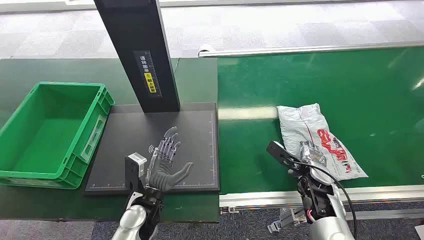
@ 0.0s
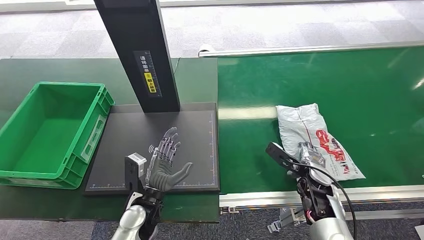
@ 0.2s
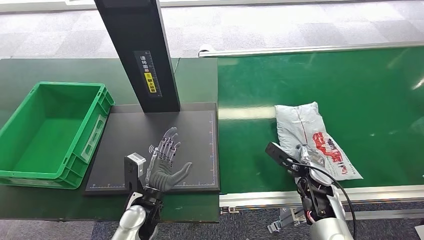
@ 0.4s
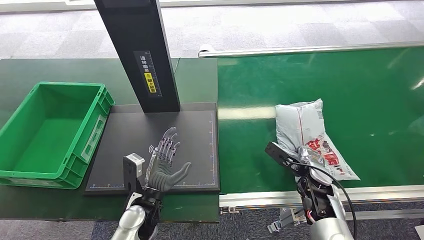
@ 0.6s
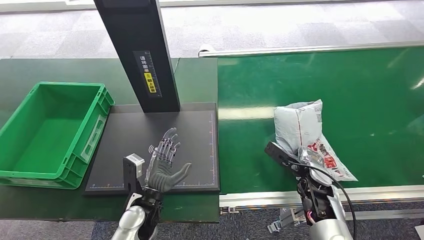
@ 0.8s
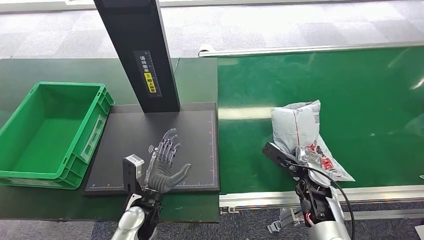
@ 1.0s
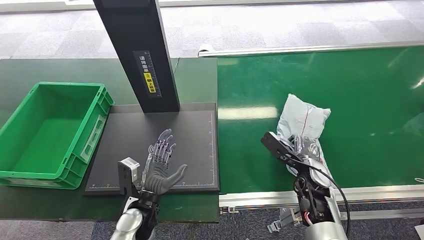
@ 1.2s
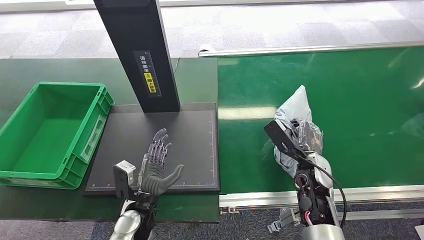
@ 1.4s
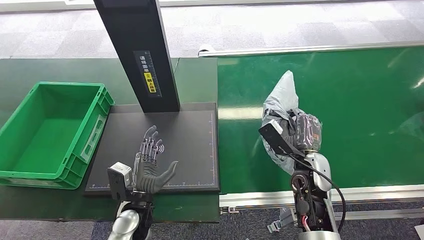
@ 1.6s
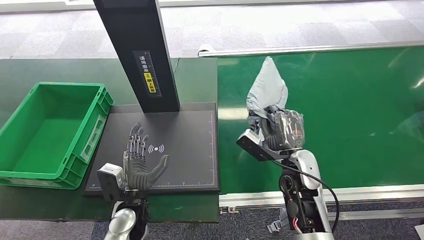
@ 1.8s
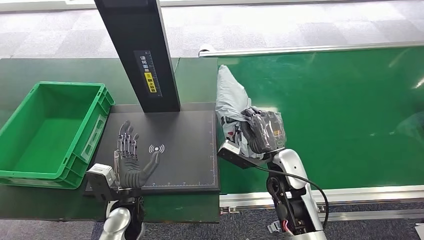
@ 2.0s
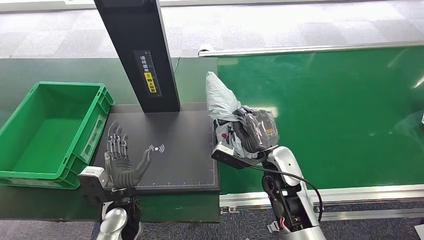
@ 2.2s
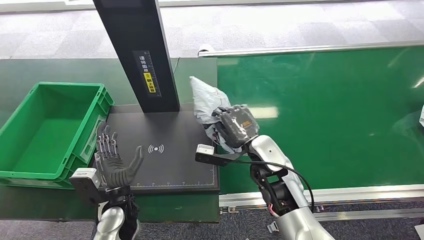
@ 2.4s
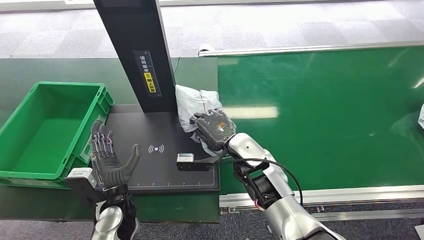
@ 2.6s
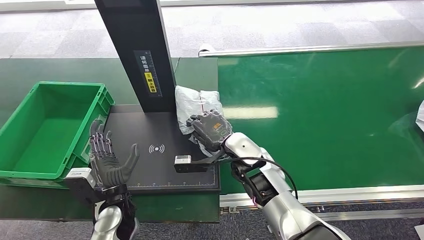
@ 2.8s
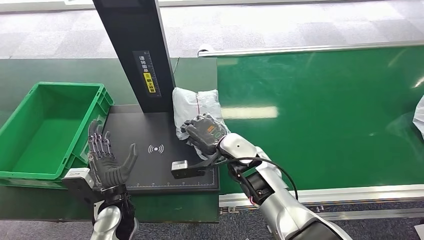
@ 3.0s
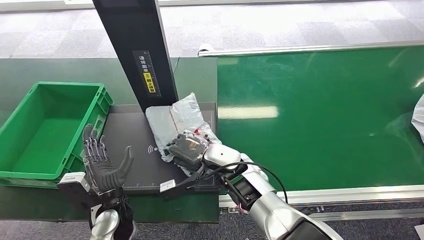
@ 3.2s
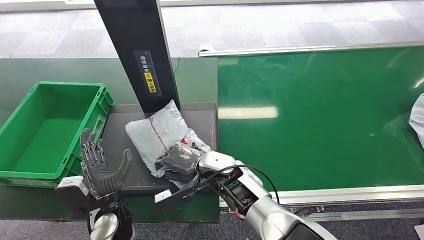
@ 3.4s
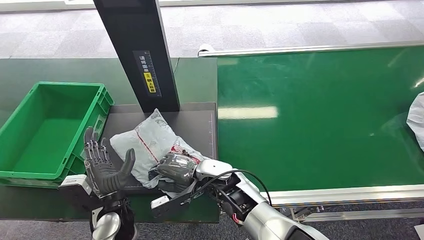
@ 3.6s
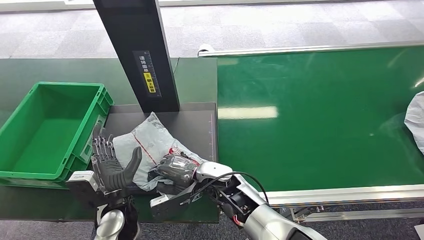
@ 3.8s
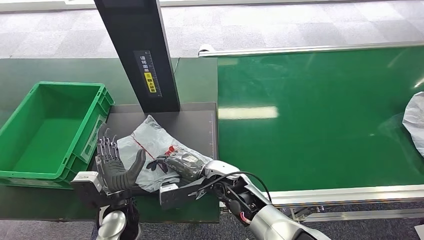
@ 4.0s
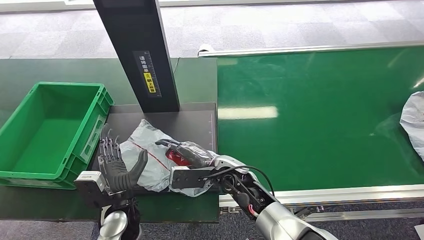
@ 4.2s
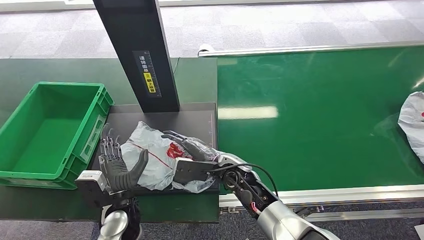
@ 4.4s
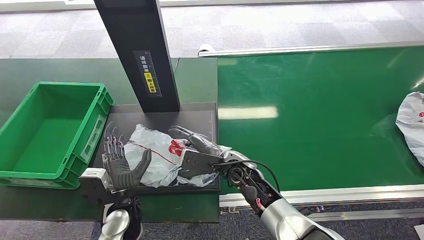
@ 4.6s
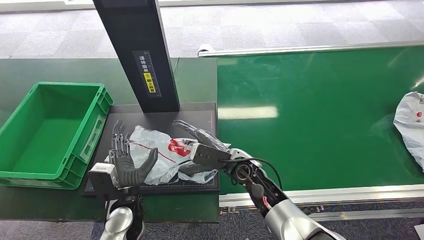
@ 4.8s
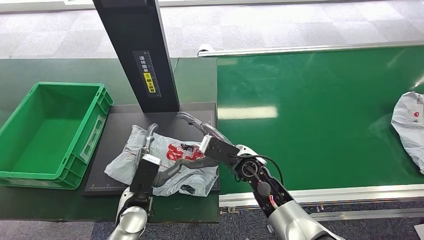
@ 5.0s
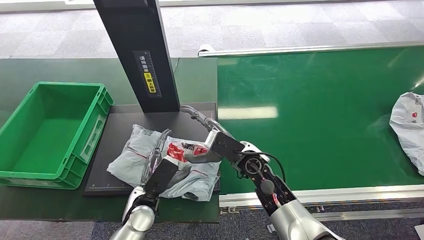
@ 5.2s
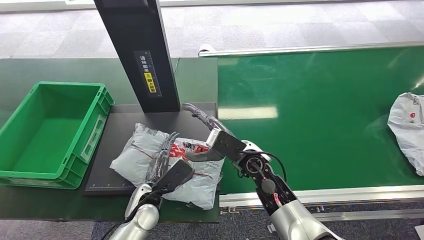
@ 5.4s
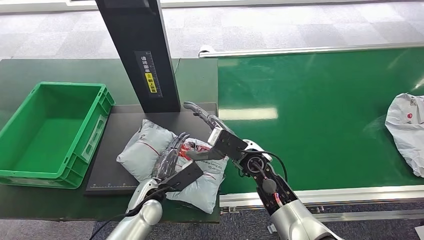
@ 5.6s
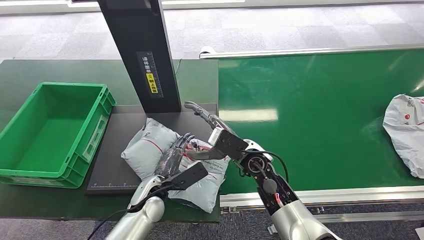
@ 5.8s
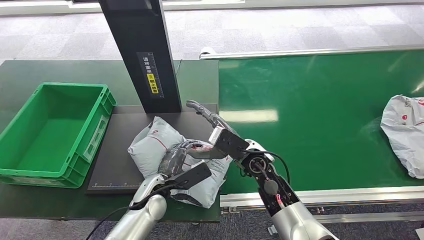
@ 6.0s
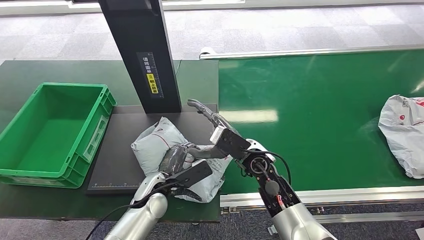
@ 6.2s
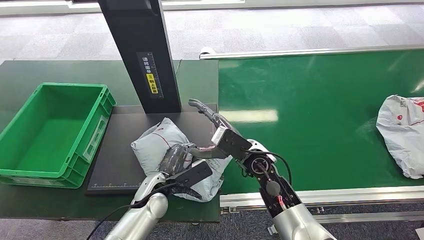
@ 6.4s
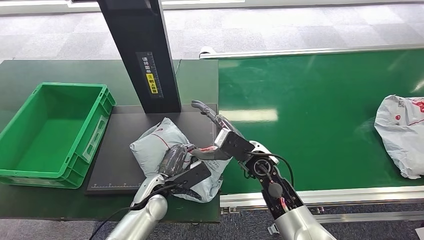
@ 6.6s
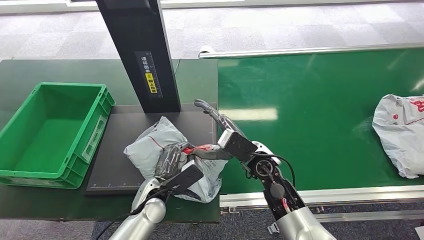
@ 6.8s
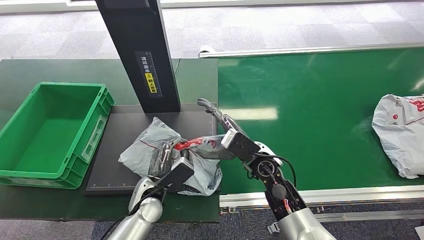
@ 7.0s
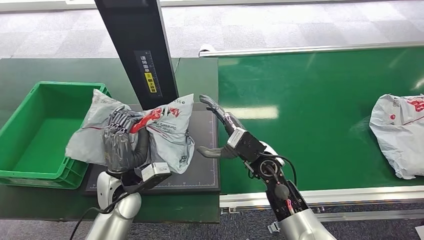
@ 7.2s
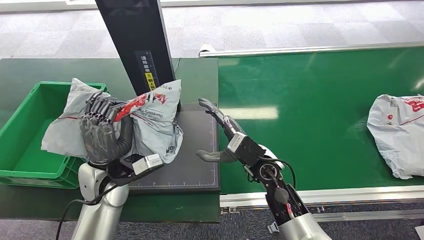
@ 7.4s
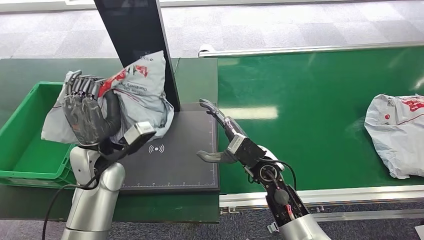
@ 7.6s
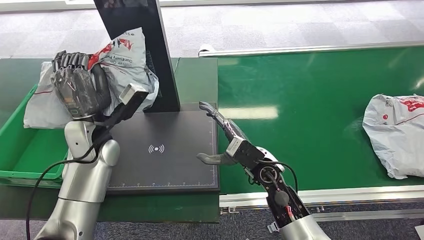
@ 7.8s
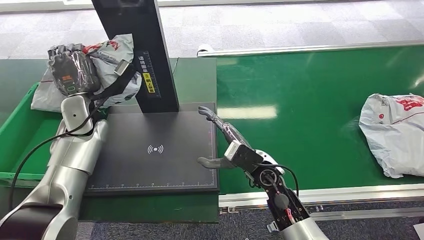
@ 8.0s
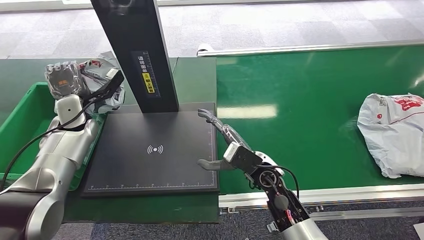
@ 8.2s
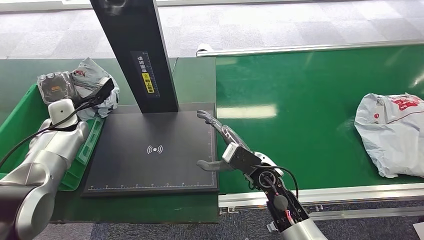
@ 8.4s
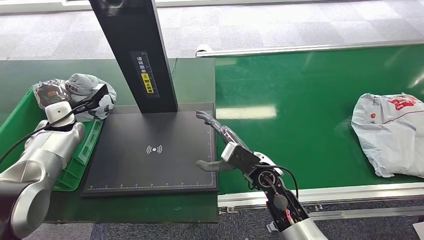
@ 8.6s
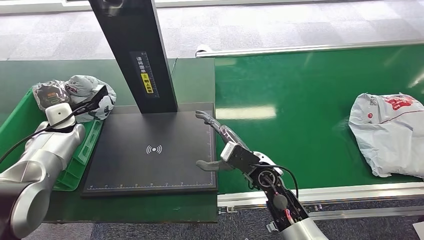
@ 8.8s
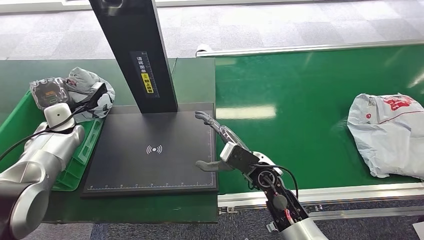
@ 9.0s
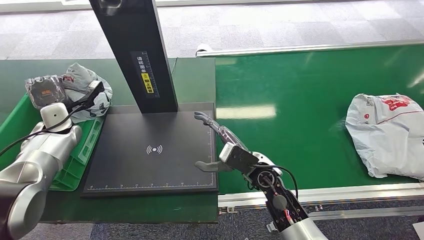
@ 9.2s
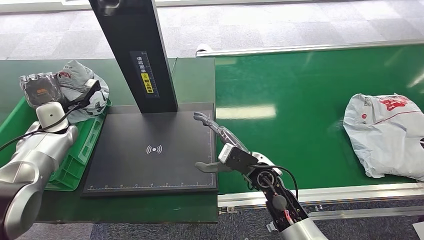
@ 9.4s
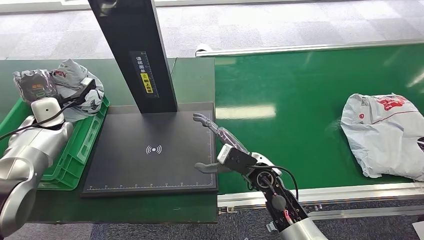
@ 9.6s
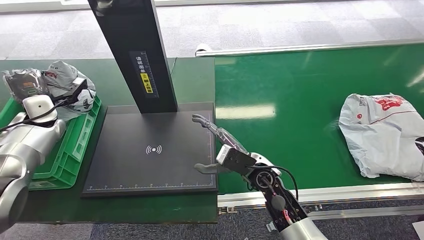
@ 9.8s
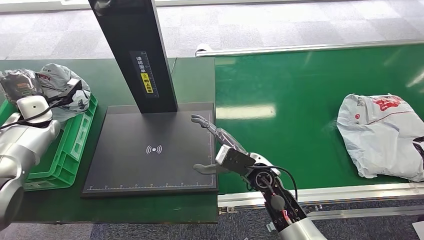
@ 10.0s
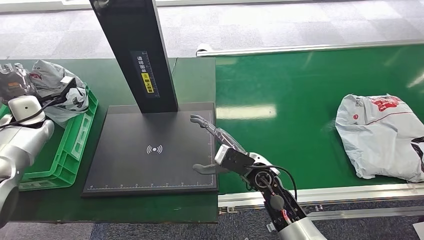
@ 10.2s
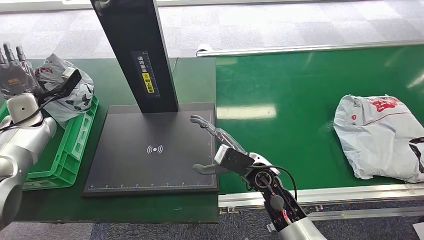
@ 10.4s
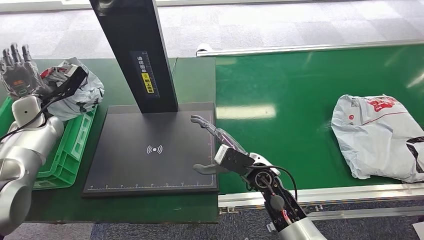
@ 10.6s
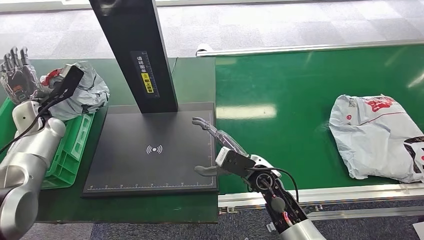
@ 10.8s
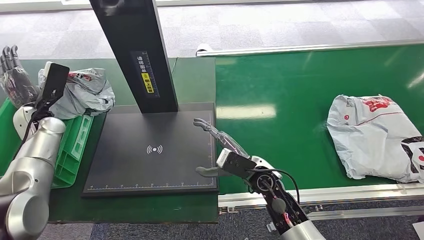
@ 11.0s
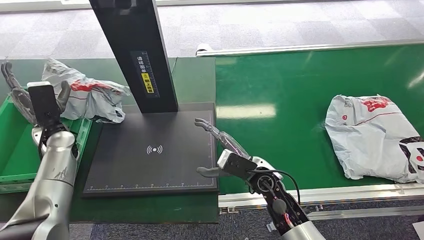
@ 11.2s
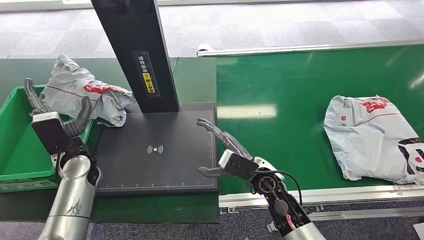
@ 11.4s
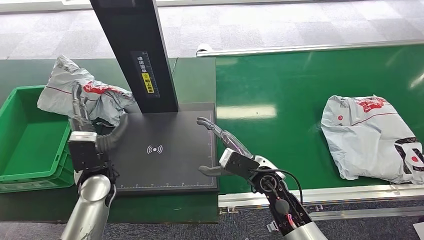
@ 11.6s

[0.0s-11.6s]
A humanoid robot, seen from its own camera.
Task of the whole recording: Weigh the package on the weighing device and place it in the left basket.
Step, 0.0s to 2.4s: Pick up the package from the conveyor belt.
Step, 2.6s to 5.0s: Place the package onto the inbound machine.
Step, 5.2s to 7.4s: Pick up the package from the inbound machine.
Step, 7.8s to 11.6s: Place the package into the parcel locker.
1.4s to 2.8s: The right hand goes some 20 cm to the left. The left hand moves approximately 5 cm.

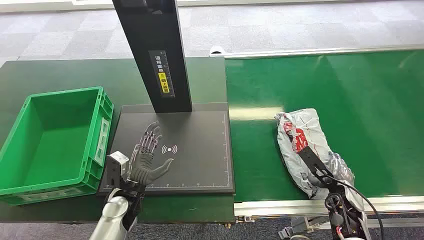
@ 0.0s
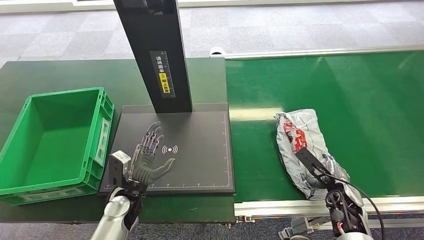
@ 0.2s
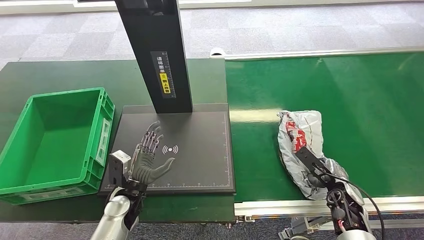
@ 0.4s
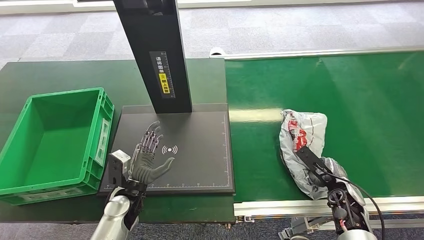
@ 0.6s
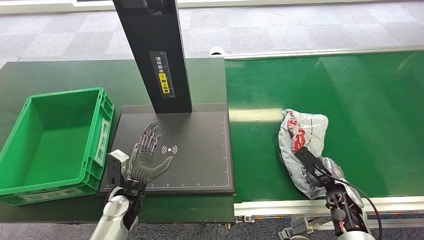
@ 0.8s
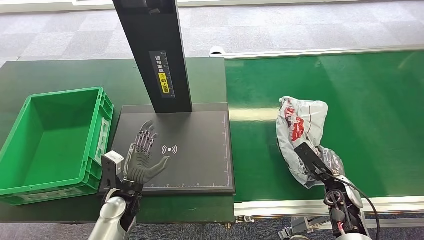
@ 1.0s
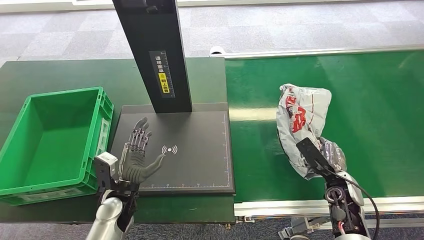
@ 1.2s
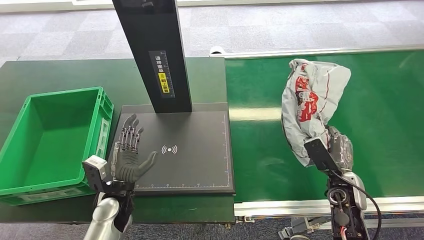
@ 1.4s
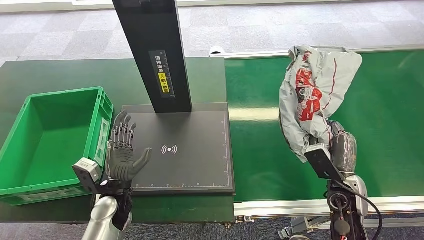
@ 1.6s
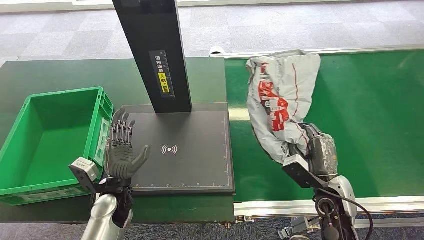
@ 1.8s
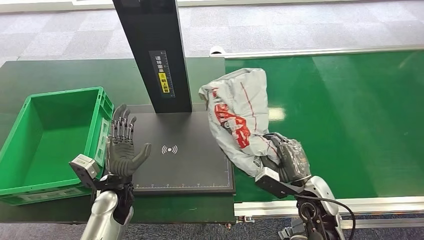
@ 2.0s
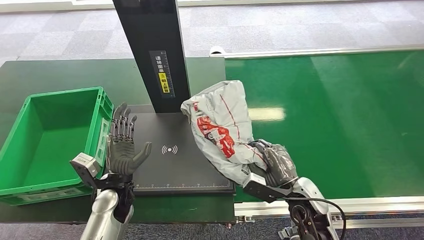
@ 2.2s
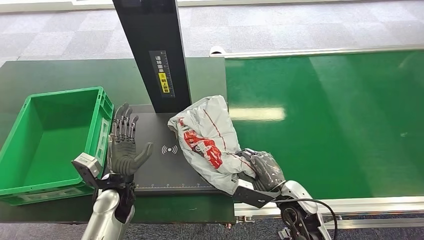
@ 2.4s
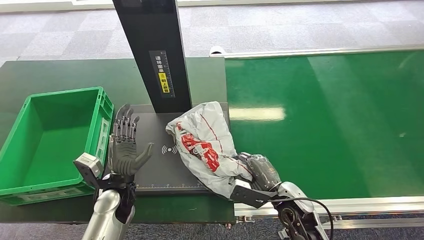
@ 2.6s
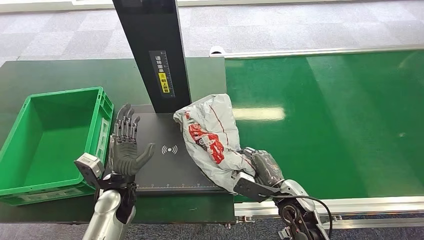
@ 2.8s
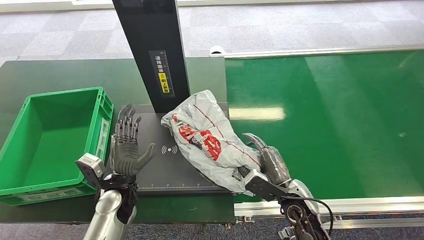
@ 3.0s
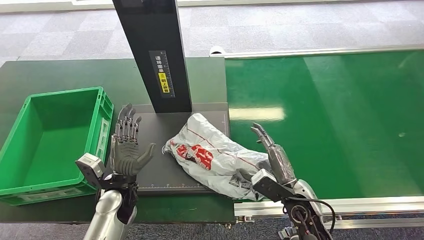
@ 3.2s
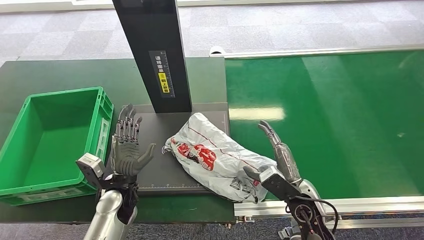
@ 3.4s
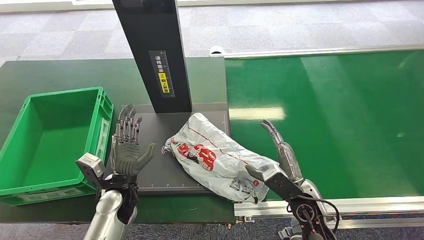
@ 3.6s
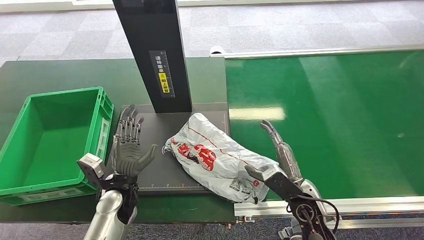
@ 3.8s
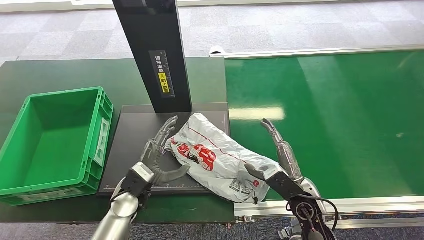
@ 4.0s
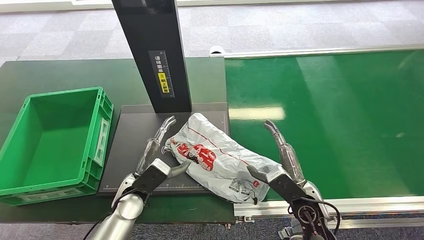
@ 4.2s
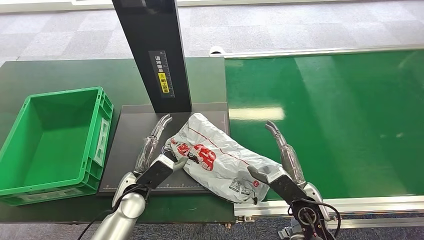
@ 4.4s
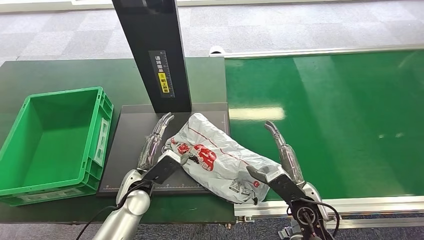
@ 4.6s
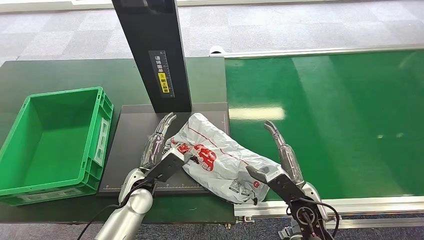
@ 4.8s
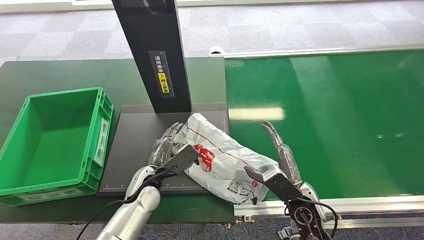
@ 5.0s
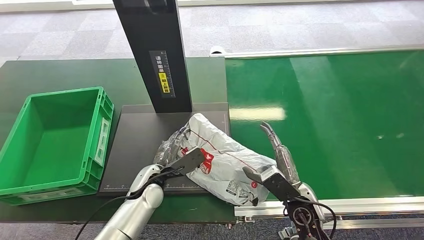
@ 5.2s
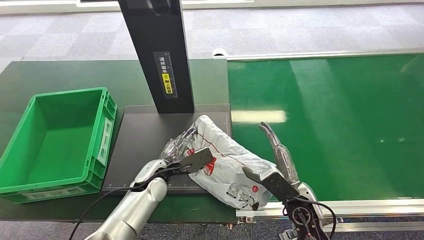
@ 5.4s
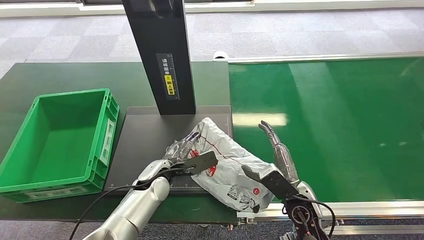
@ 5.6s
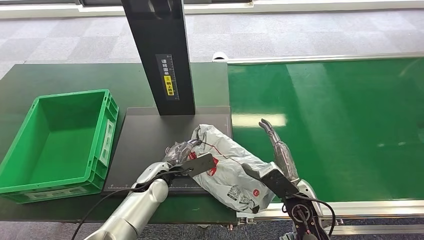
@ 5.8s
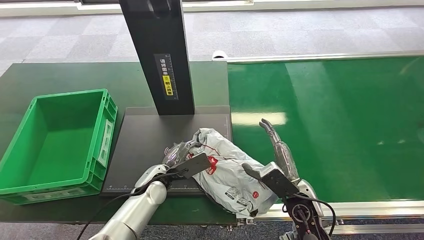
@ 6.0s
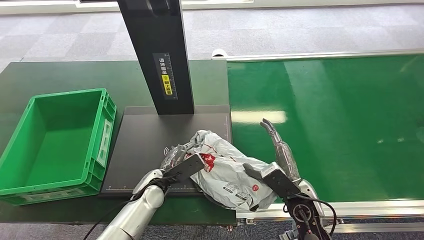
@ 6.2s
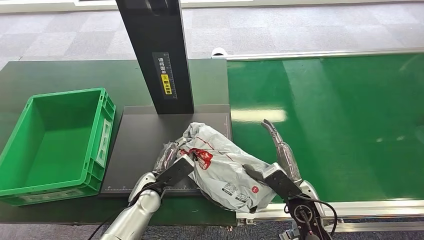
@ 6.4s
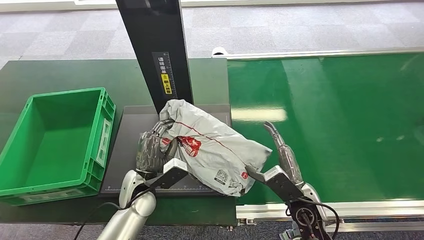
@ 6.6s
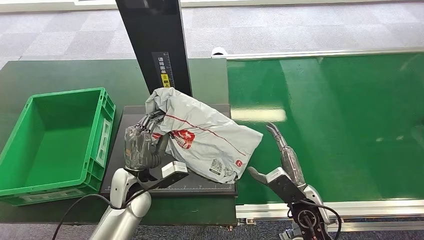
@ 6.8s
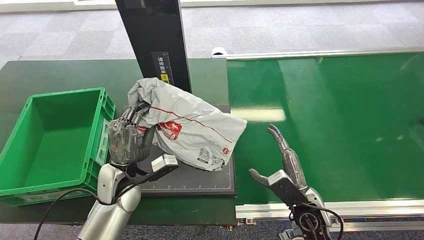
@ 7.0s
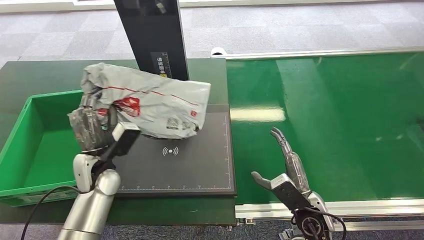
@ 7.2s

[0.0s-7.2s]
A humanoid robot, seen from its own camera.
Task of the whole recording: Weigh the package on the weighing device and place it in the left basket.
Step, 0.0s to 1.6s: Pick up the package from the conveyor belt.
Step, 2.0s to 4.8s: Place the package onto the inbound machine.
Step, 5.0s to 7.0s: Pick up the package from the inbound machine.
1.4s to 2.8s: The right hand is displaced to the left by some 15 cm.
